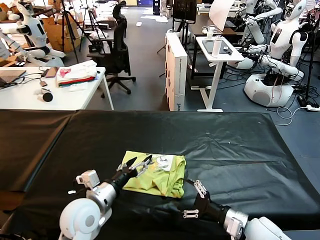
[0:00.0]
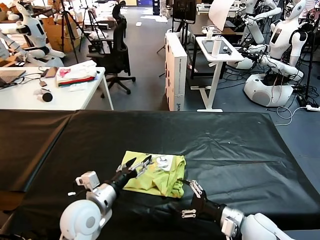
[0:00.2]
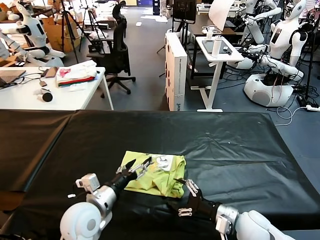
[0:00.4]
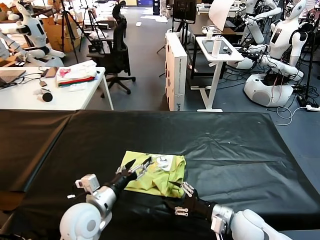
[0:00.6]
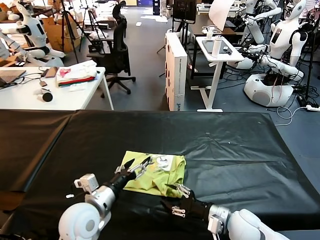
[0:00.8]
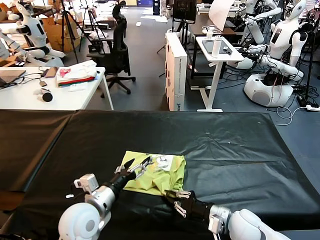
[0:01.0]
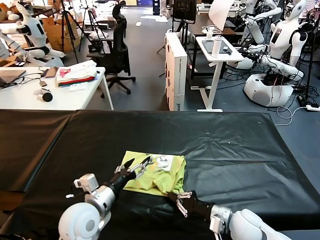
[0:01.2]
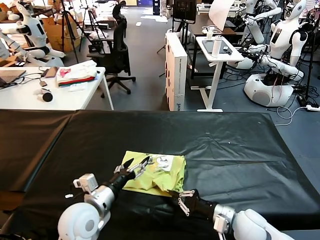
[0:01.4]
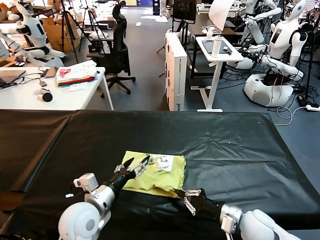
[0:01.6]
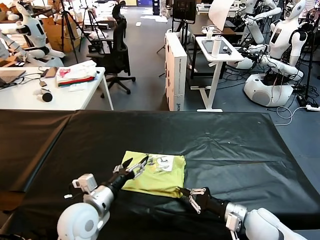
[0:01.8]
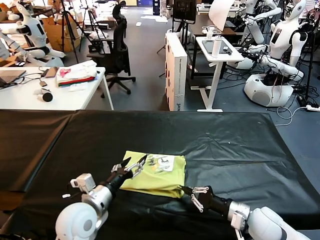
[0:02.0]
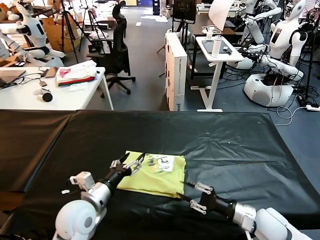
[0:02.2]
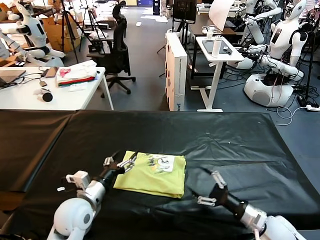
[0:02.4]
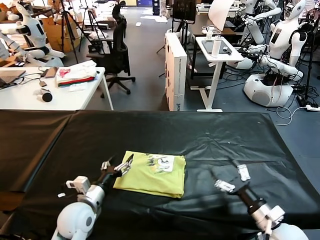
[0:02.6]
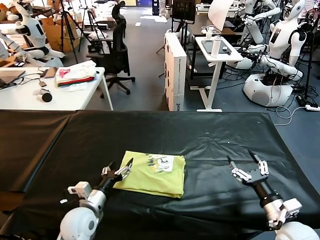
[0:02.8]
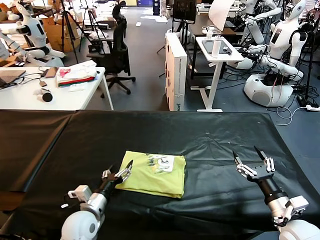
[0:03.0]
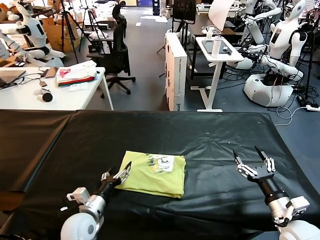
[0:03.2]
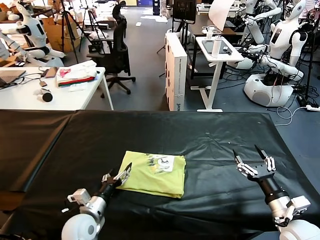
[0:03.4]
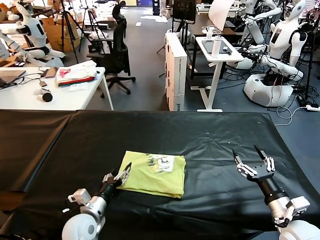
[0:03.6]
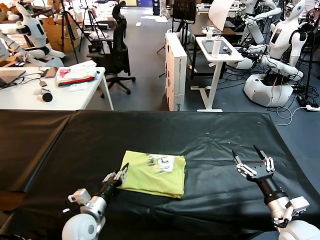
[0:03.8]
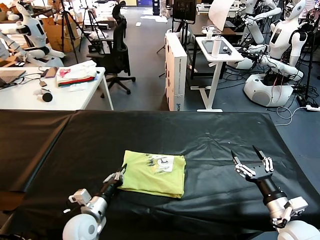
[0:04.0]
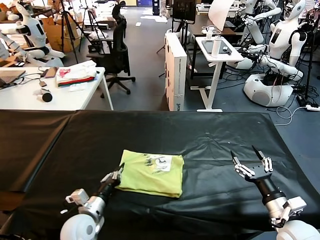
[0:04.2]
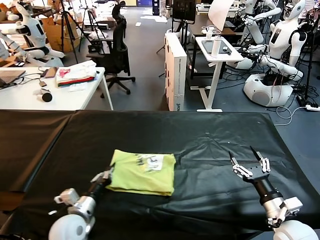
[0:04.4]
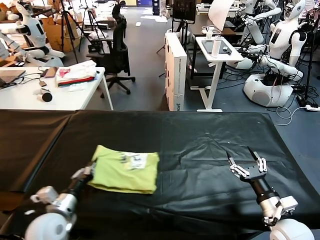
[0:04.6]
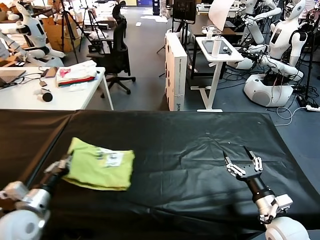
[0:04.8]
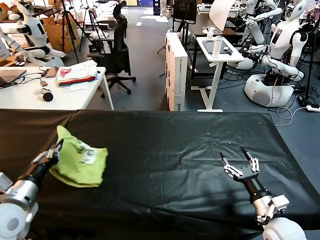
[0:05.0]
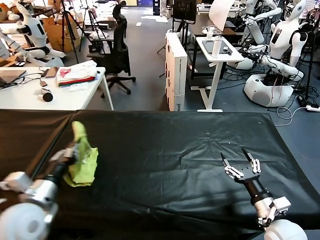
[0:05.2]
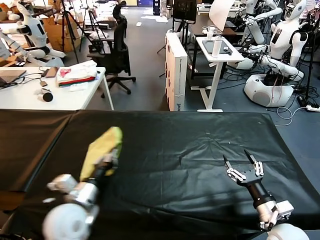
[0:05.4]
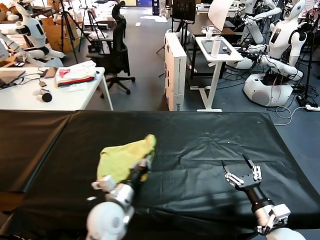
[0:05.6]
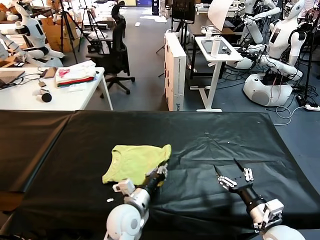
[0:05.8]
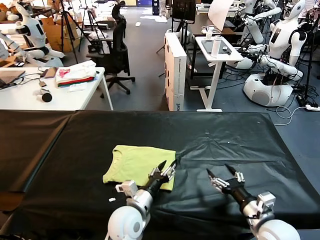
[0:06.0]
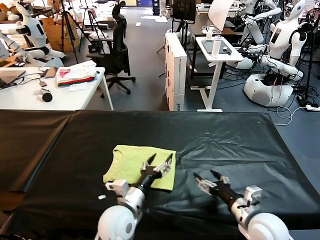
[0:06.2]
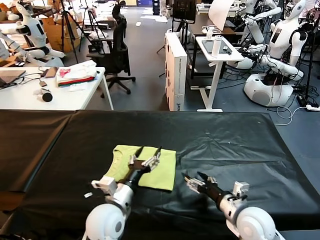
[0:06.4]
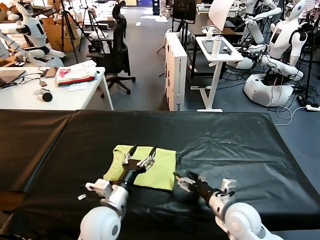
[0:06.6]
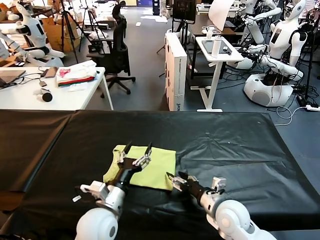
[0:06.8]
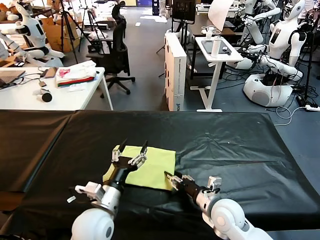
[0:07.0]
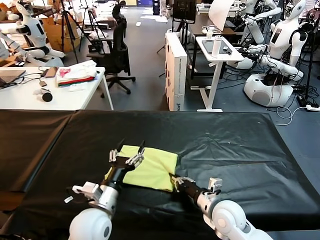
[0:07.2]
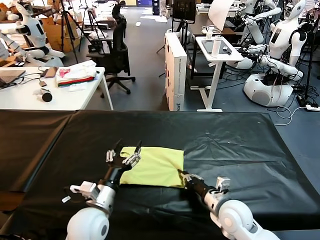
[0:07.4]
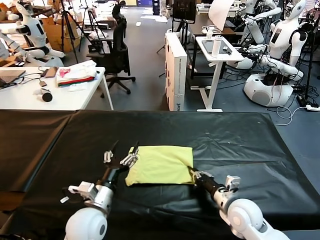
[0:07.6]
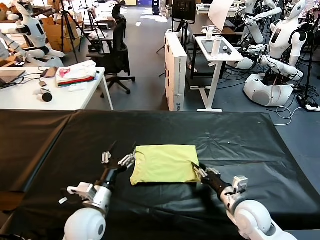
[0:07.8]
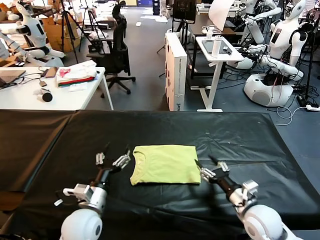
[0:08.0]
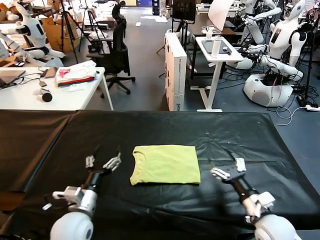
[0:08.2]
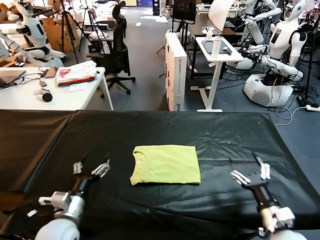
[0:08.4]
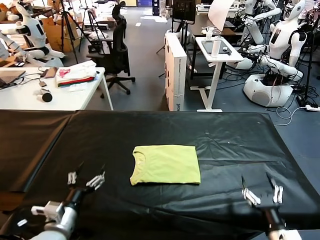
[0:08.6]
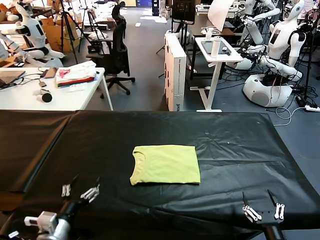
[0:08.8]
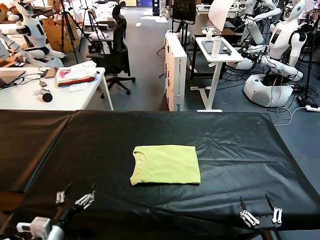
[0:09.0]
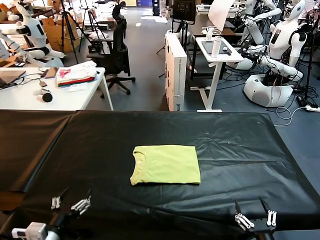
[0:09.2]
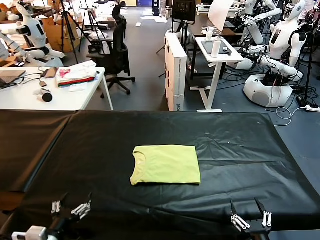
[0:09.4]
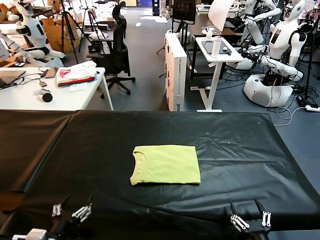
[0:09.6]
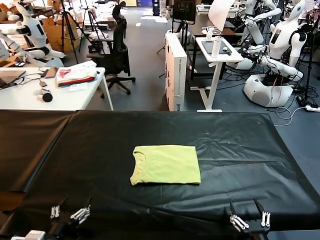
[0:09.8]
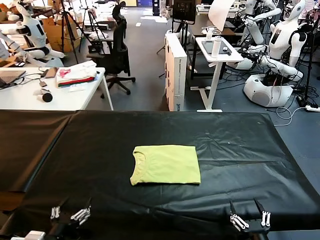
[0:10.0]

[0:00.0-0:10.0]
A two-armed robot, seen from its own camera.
Task of the whole recording: fold and organize the clothes.
Step, 0:00.0 to 0:06.0: Flip the folded clothes over with left gripper.
Step, 0:06.2 to 0:08.0: Drag the clothes to the center of the table.
0:00.0 to 0:01.4: The right gripper closes.
0:01.4 to 0:02.8: The right gripper is displaced to the right by about 10 cm, and opens its fingers, while the left gripper heads downward, covering roughly 10 cm.
0:02.8 to 0:04.2: The left gripper closes.
0:04.2 to 0:05.8: The left gripper shifts approximately 15 cm to the right.
0:05.8 to 0:07.2: The left gripper shifts some 5 cm to the left, and opens its fingers. Meanwhile the right gripper travels to the left and forward by some 15 cm, and closes its fingers.
0:07.2 to 0:08.6: The right gripper shifts roughly 20 cm backward and to the right, and opens up. The left gripper heads to the left, covering roughly 10 cm.
0:08.6 to 0:10.0: Both grippers travel together backward, some 10 cm.

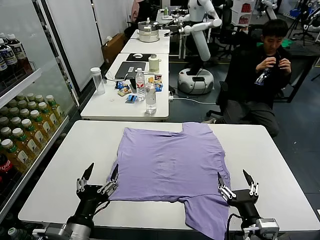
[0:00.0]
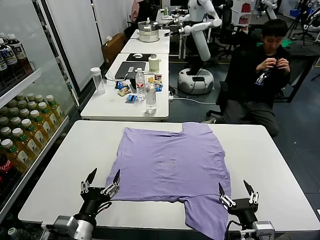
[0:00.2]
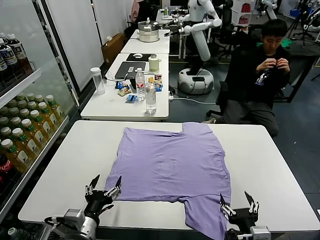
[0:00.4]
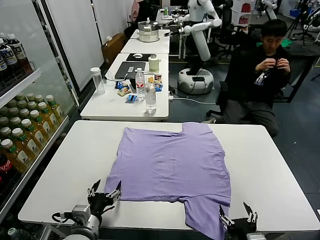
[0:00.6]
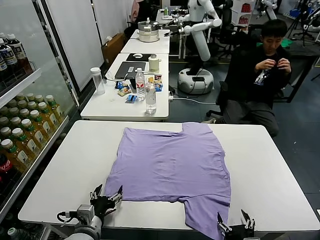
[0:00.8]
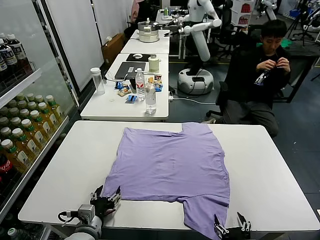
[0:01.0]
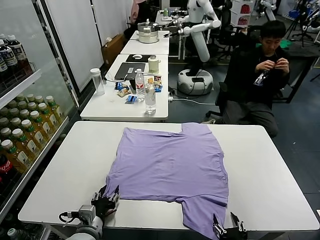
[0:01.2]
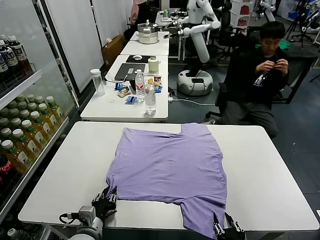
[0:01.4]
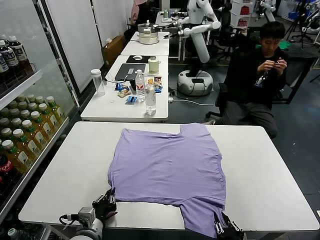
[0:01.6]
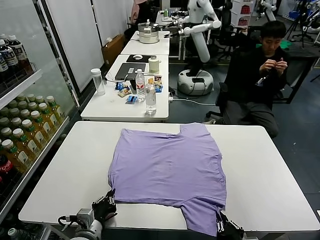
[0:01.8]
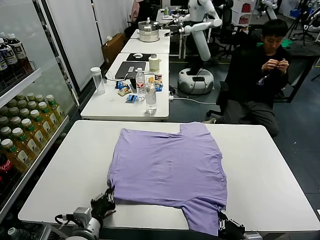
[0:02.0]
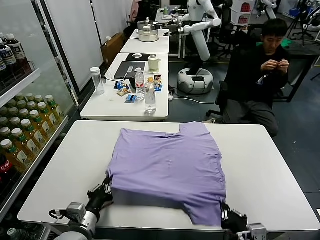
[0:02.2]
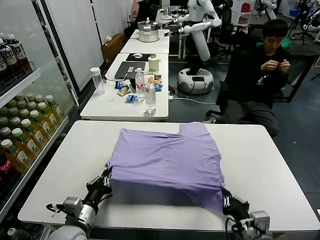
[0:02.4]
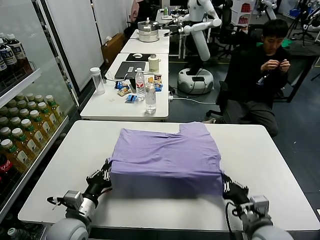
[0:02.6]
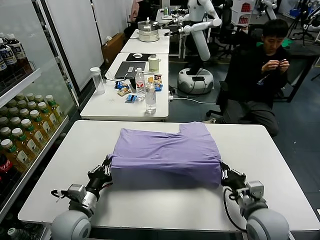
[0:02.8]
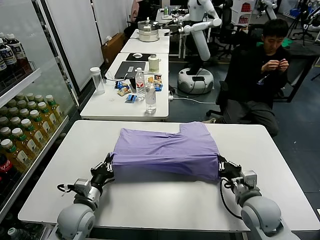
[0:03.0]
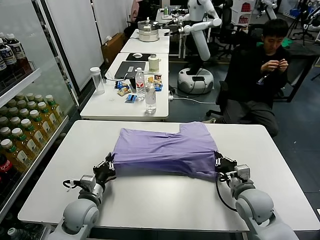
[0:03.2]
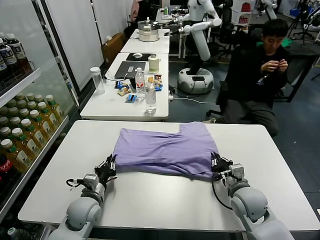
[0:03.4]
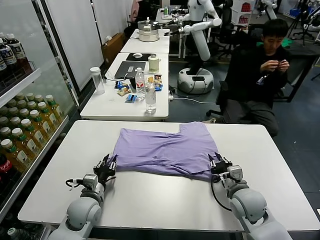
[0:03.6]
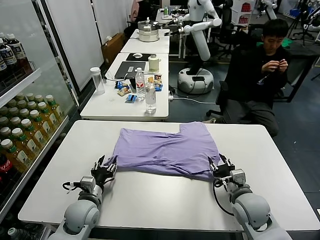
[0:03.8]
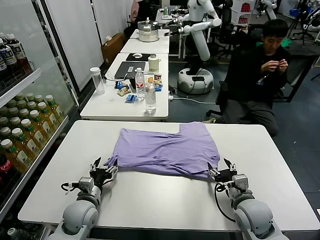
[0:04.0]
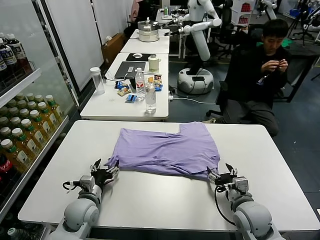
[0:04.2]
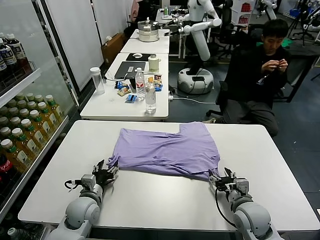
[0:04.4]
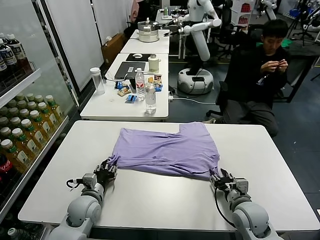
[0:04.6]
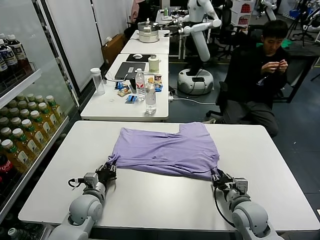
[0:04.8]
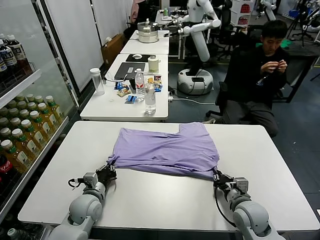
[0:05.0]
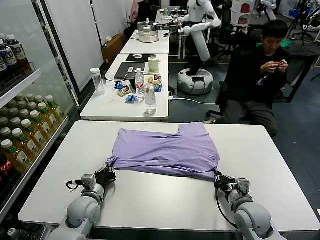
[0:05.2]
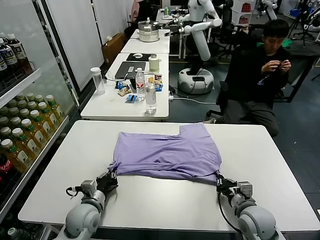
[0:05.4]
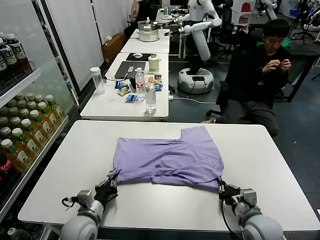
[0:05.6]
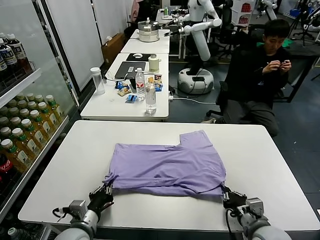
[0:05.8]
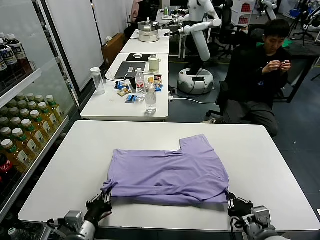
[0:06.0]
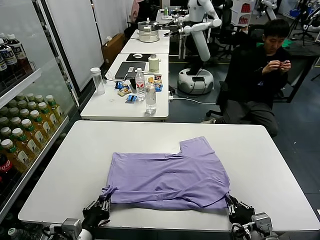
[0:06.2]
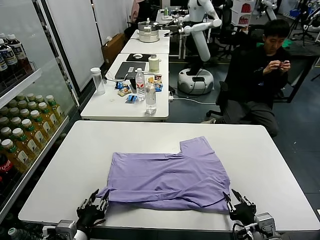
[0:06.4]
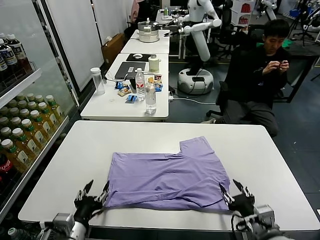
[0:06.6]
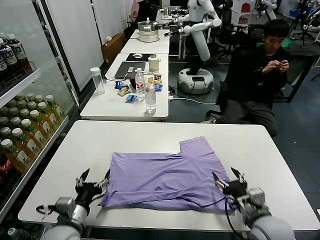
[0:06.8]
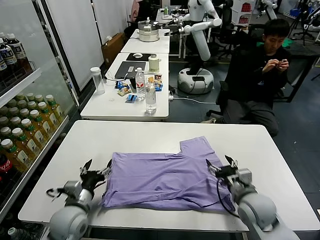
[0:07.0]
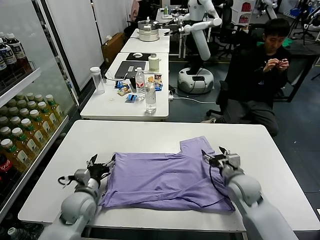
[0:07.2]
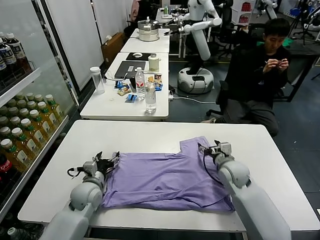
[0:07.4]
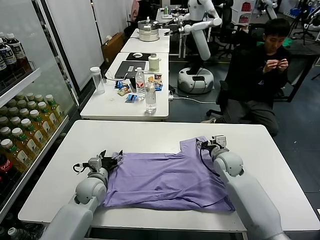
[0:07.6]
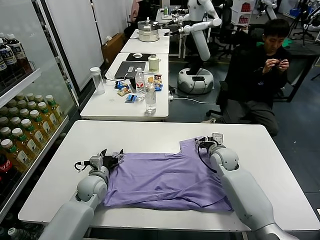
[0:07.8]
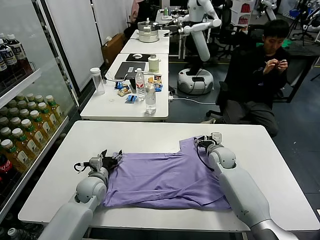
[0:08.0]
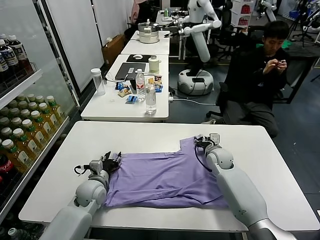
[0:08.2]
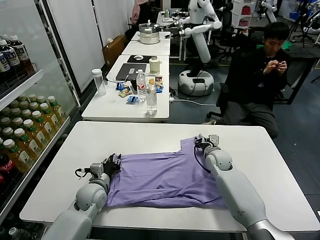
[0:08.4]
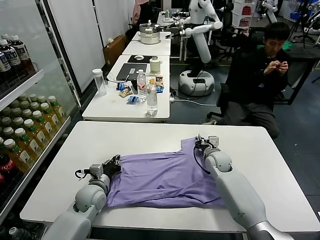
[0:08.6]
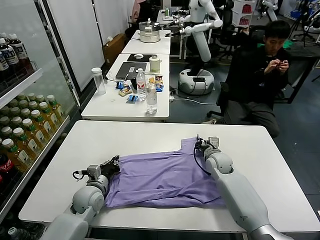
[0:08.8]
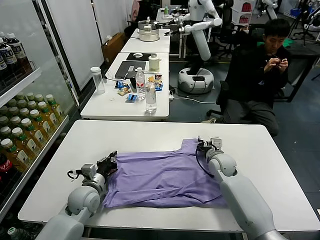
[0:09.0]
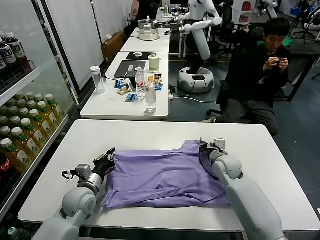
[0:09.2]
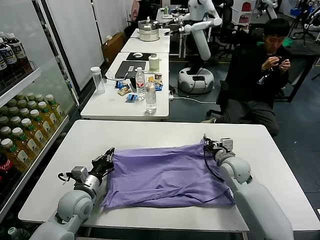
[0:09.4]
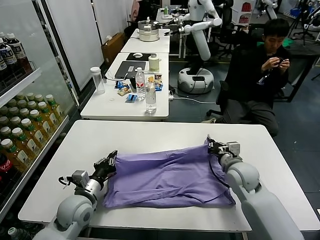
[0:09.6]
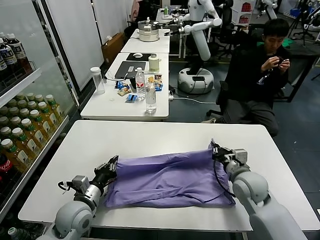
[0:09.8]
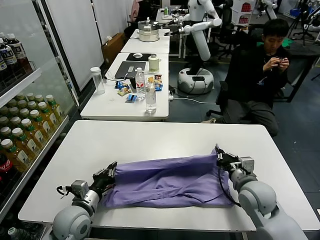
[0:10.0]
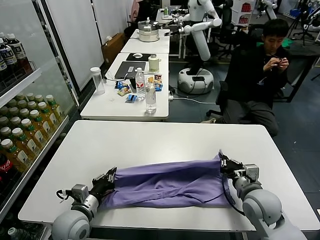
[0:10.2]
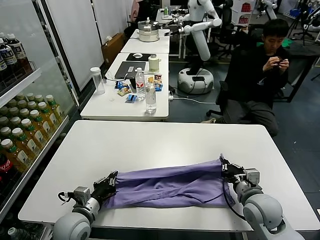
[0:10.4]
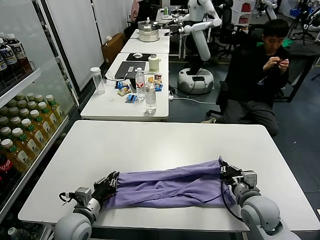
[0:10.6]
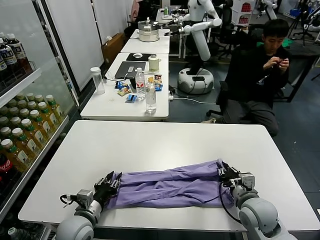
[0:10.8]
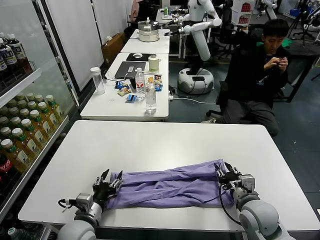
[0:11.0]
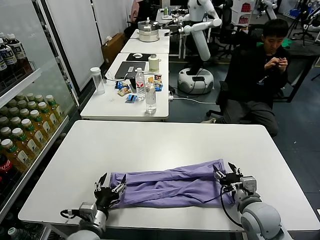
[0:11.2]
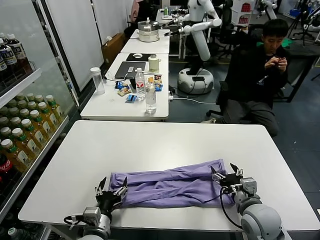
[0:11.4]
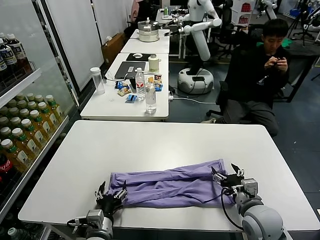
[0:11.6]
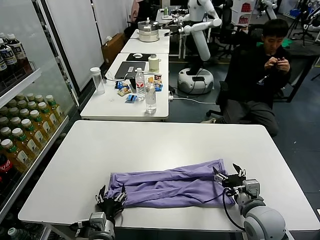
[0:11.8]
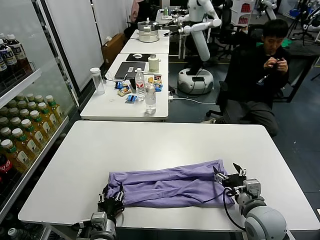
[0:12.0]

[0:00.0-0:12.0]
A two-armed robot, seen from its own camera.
Task of the whole recording: fold and organize the clothes.
Step, 0:00.0 to 0:02.0: use both grippers simultaneously to clamp the lower edge of the clothing fabric.
Step, 0:02.4 to 0:03.8: use both grippers to drag the lower edge of the fabric forward and fold it over the upper edge.
Step, 0:04.0 to 0:06.6: Drag the clothes downward with both gripper.
Step, 0:06.8 to 0:08.8: use both grippers simultaneously to clamp the upper edge of the clothing fabric.
Step, 0:09.0 to 0:11.6: use both grippers to drag the upper edge of the fabric backward and fold it over the lower edge.
0:01.6 to 0:03.0: The left gripper shifts approximately 10 cm forward. The right gripper goes about 20 cm forward.
0:03.0 to 0:04.4: The right gripper opens its fingers. The left gripper moves roughly 5 cm, and opens.
0:04.4 to 0:06.0: Both grippers travel together backward, approximately 15 cm. The left gripper closes up. Meanwhile the right gripper closes its fingers.
0:06.0 to 0:07.6: The right gripper heads forward, covering roughly 30 cm, and opens up; the left gripper moves forward, about 20 cm, and opens up.
0:07.6 to 0:09.0: The right gripper closes up, while the left gripper closes its fingers.
0:09.0 to 0:10.4: The left gripper is displaced backward by approximately 10 cm, while the right gripper shifts about 20 cm backward.
0:10.4 to 0:12.0: The left gripper heads to the right, backward and downward, covering approximately 10 cm, and opens its fingers, while the right gripper opens.
